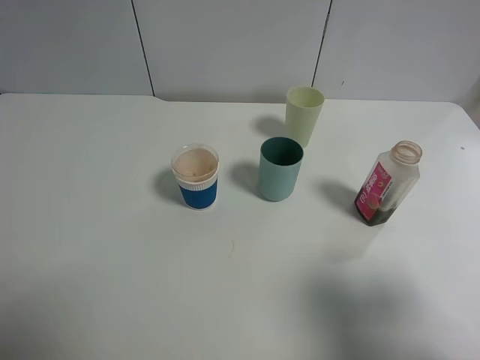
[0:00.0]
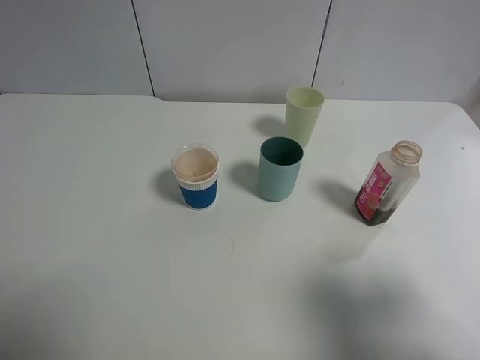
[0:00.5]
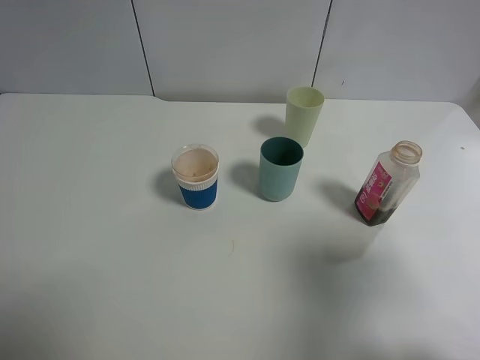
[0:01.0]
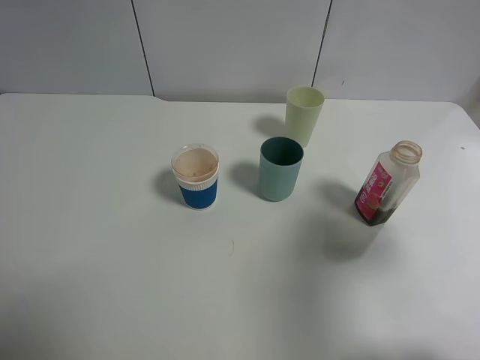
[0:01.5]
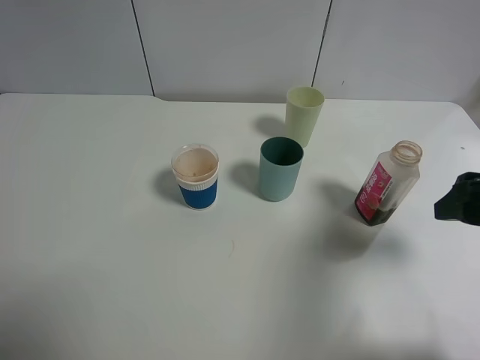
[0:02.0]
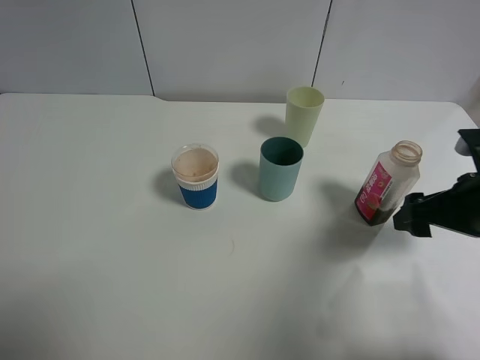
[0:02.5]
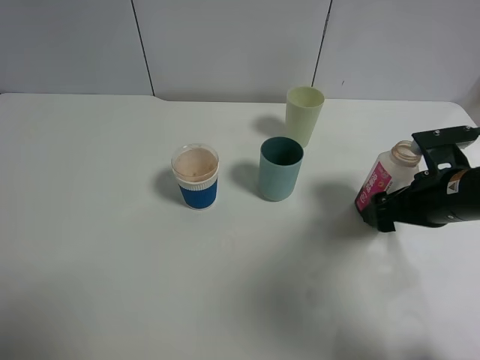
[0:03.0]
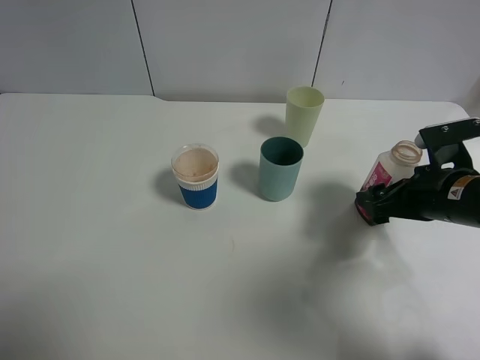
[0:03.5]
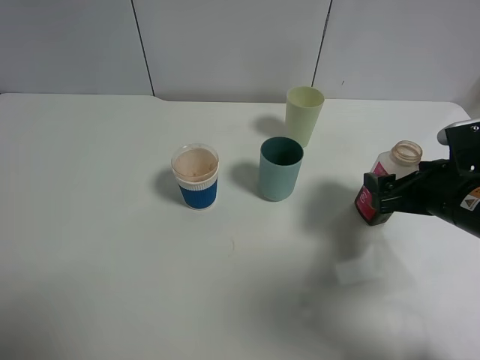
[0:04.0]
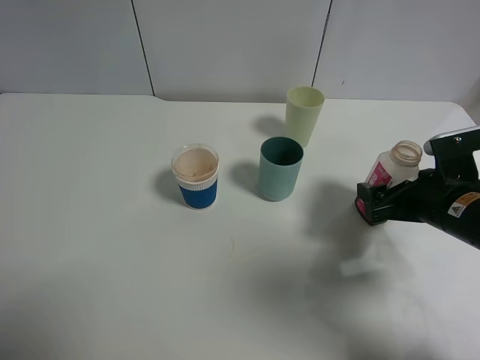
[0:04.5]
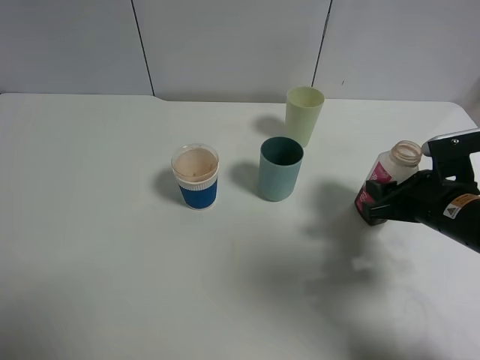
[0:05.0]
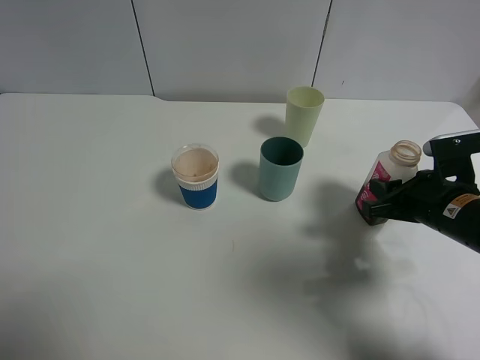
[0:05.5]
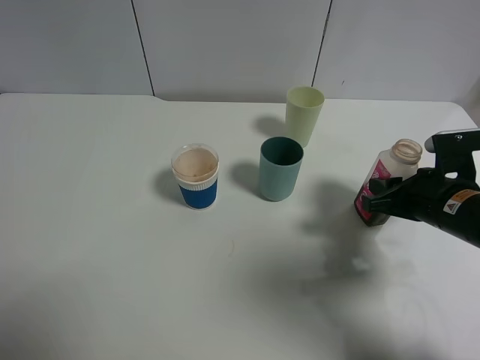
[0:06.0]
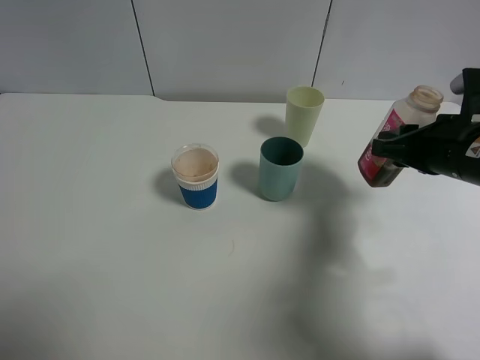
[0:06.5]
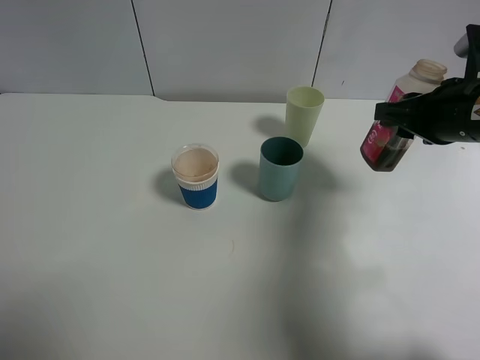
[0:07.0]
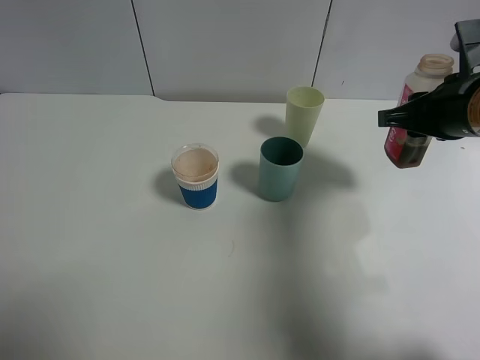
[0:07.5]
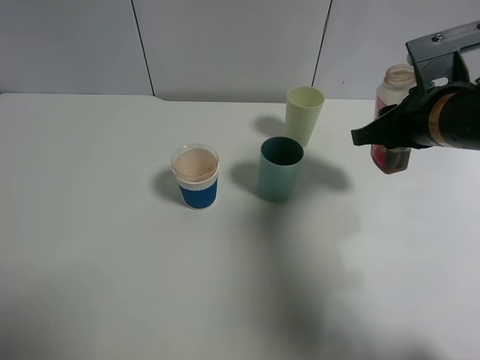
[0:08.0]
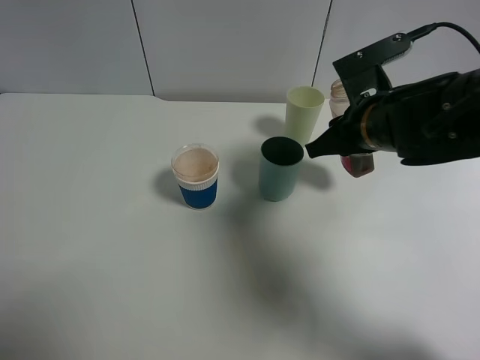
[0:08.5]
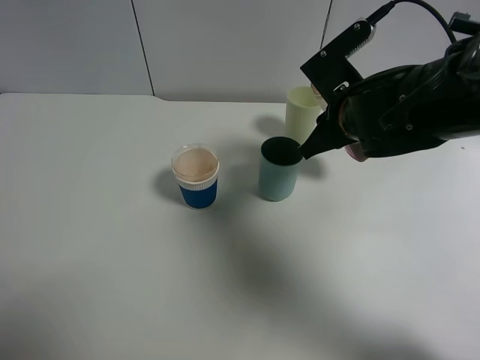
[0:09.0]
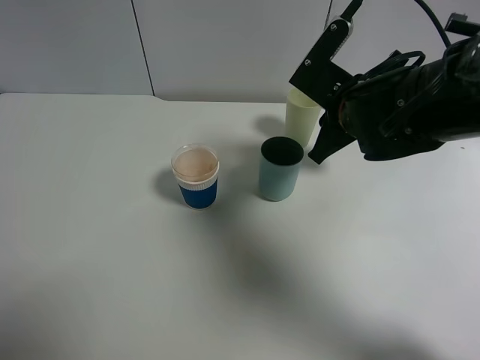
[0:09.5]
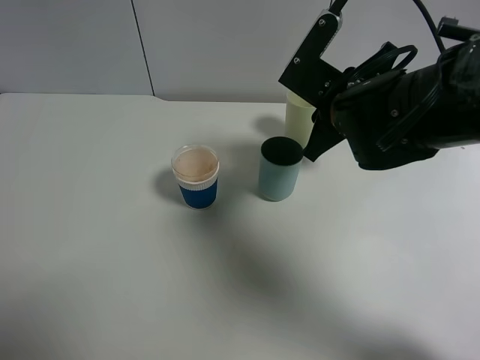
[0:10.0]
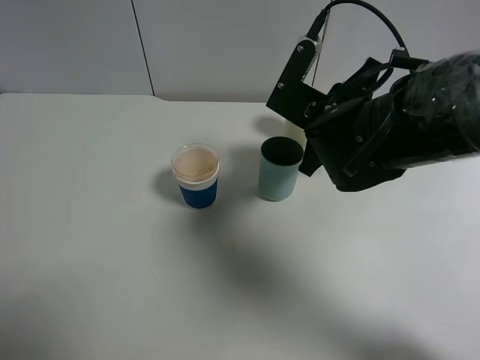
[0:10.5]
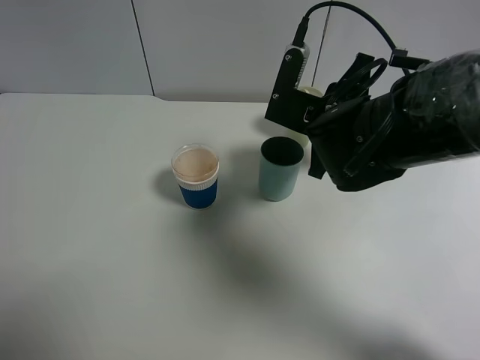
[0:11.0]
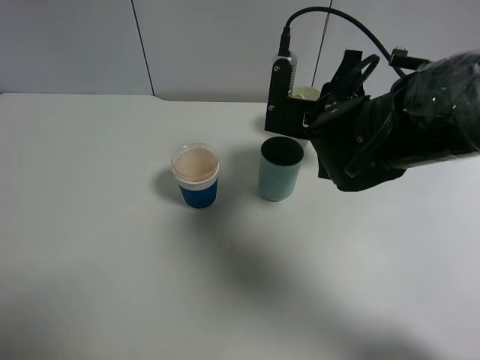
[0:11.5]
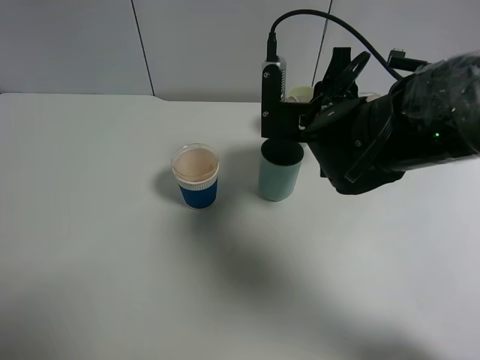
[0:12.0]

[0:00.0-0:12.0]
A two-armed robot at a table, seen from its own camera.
Task of the whole recording: use a gripper to hold the bottle of the drink and pour it into a random cup.
Step, 0:00.0 to 0:06.0: Grasp the cranberry juice bottle with the right gripper.
0:00.0 to 0:02.0: The right gripper travels forward by about 15 cm.
0:02.0 to 0:04.0: The right gripper is displaced downward by some 10 cm.
0:04.0 to 0:06.0: The right gripper closes.
0:06.0 to 0:08.0: The right gripper goes roughly 10 cm upward.
0:08.0 to 0:10.0: The right gripper goes roughly 10 cm to the left.

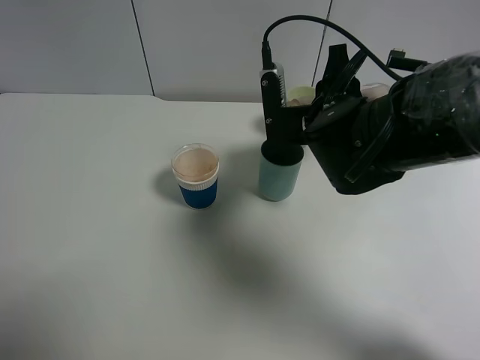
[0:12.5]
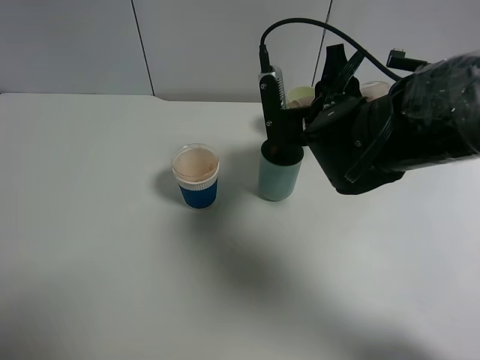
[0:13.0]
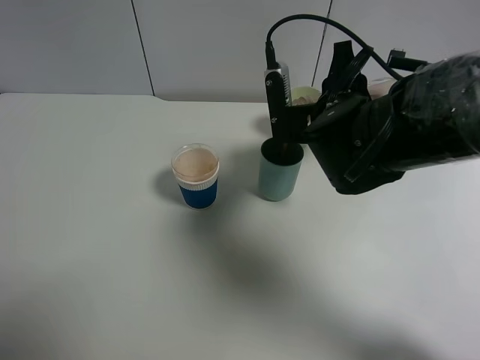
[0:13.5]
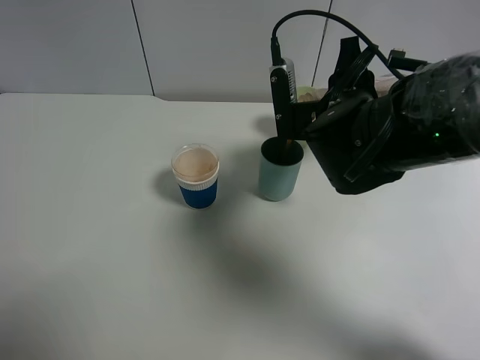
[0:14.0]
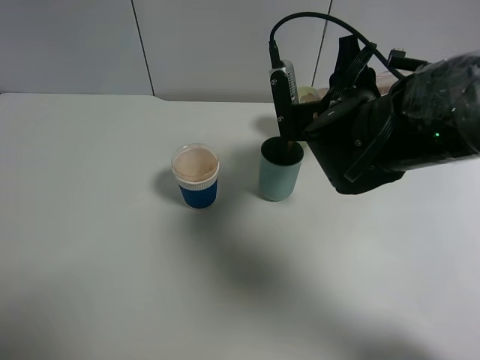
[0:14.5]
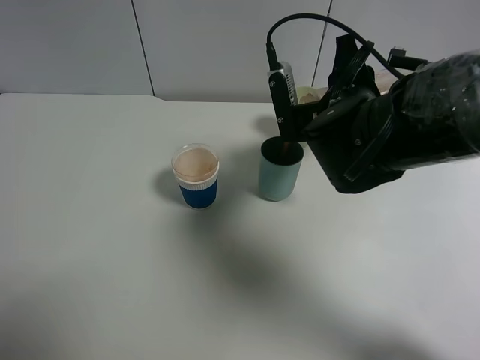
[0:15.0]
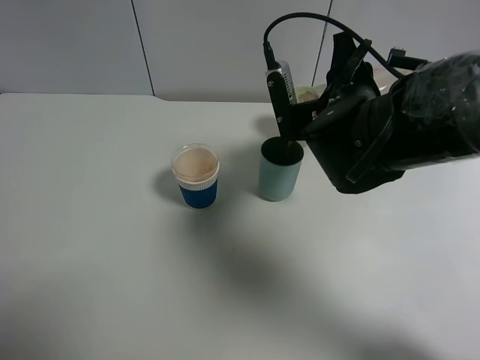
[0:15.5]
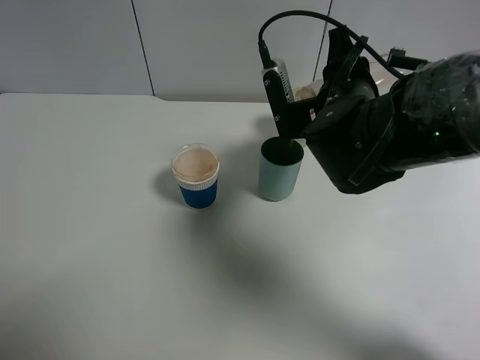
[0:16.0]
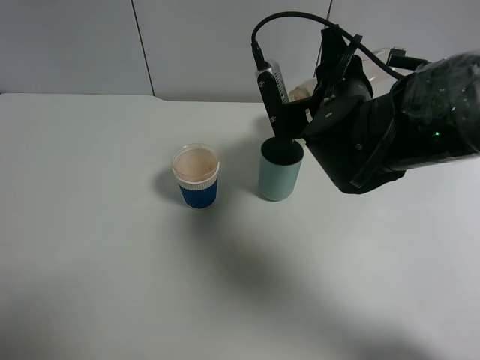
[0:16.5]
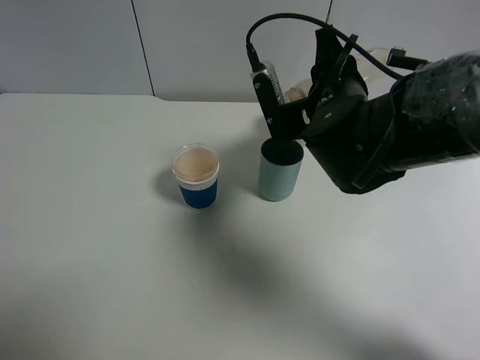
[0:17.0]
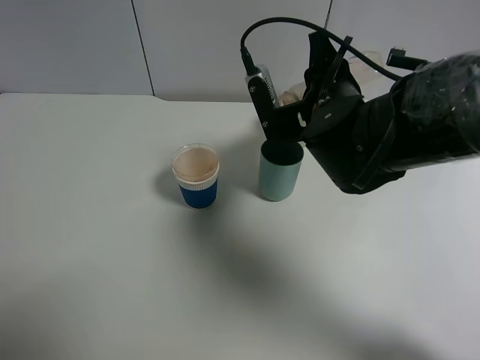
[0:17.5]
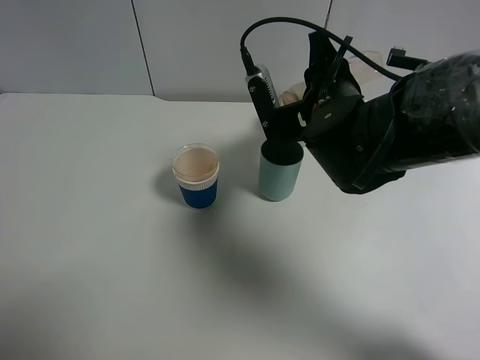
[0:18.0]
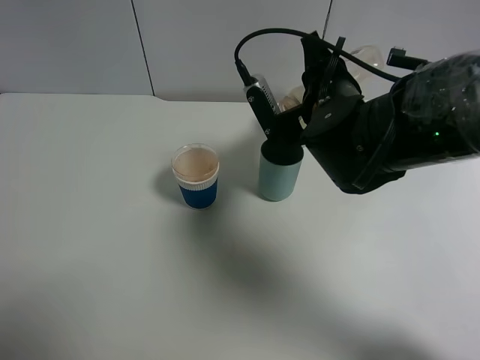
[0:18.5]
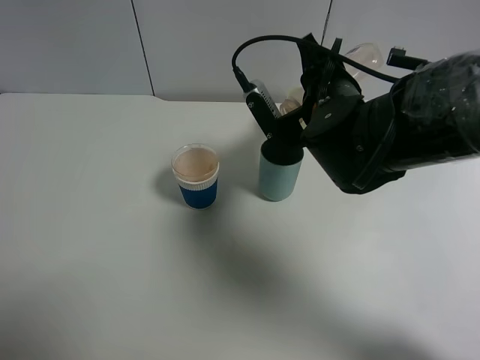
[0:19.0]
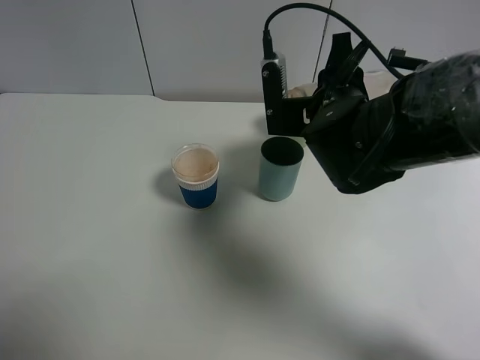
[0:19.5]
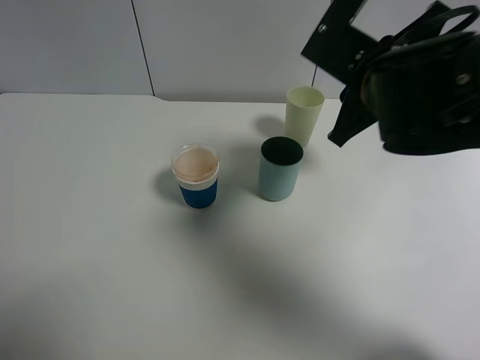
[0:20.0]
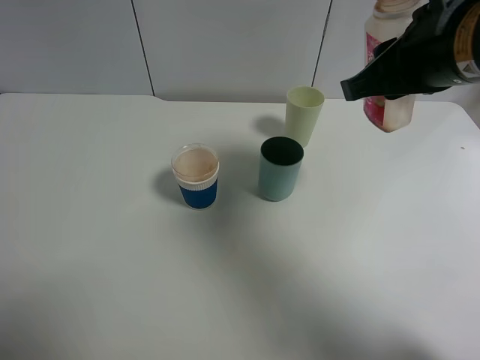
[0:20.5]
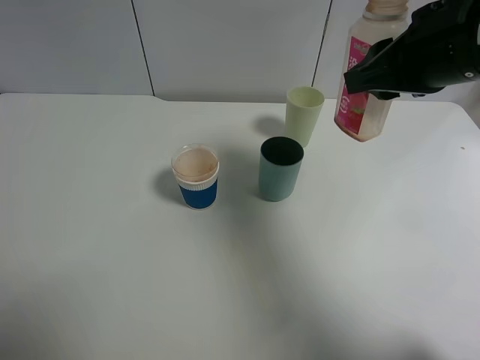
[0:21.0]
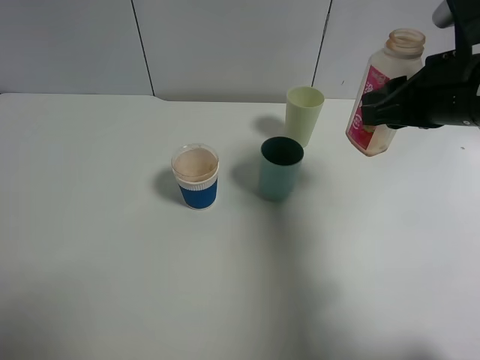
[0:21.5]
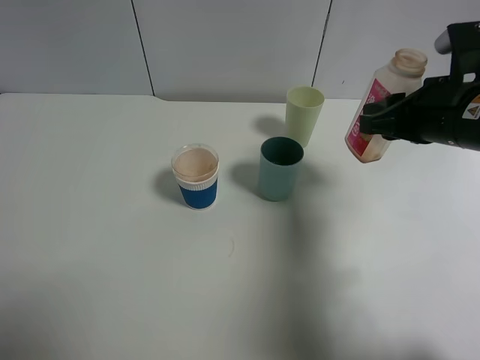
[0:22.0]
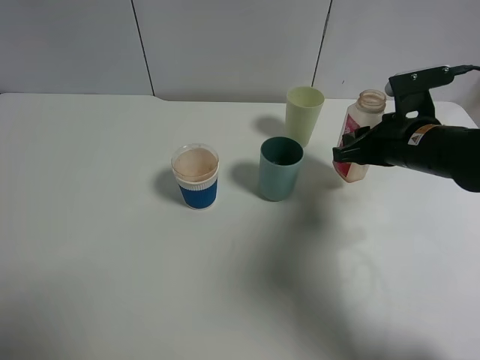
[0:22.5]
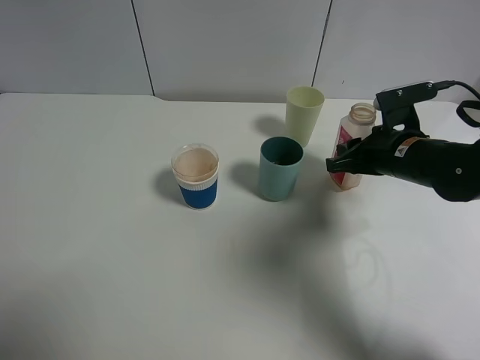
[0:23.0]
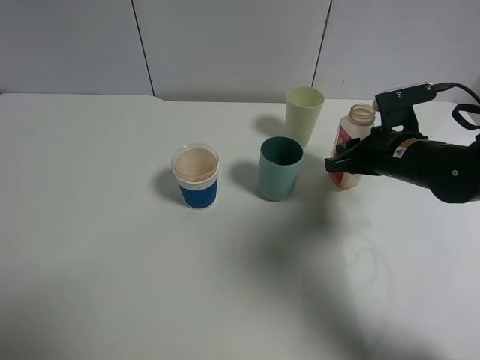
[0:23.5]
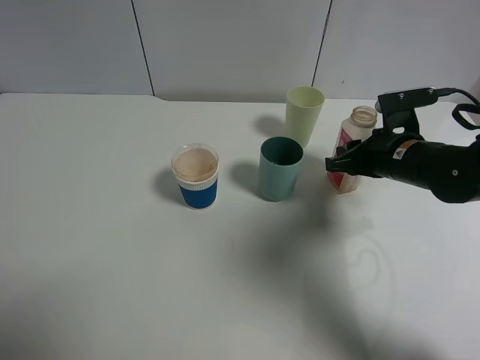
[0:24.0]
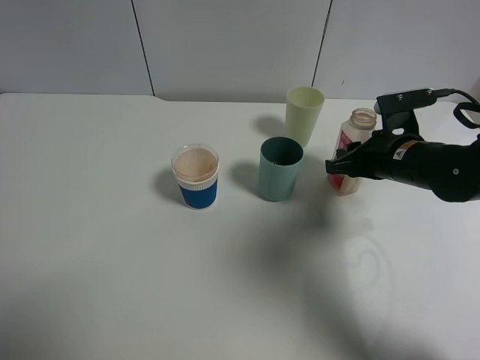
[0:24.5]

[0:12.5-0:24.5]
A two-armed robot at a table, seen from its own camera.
Task of the whole recording: use a gripper to hold the bottle of the drink and pour it into a random cup.
Step, 0:12.5 to 0:19.5: Pour the cranberry juice into the cyan cup with the right gripper.
0:12.5 to 0:16.5: The grippers make only small movements.
0:16.5 to 0:18.5: There are only small adjustments of the grippers.
0:18.5 to 0:20.5: The right gripper heads upward, to the right and backward, covering roughly 15 cm.
0:20.5 to 0:22.5: The right gripper heads downward and forward, covering roughly 15 cm.
0:22.5 to 0:24.5: The grippers make only small movements.

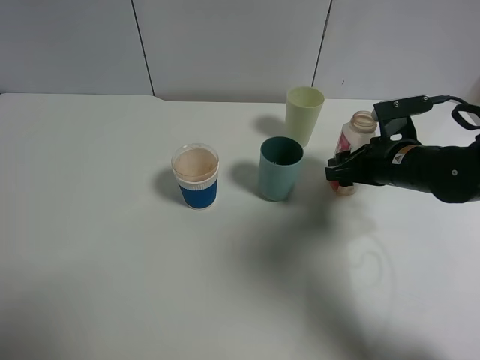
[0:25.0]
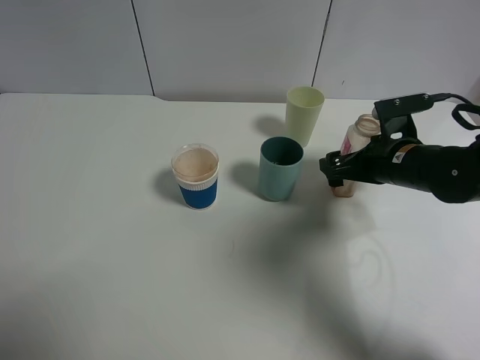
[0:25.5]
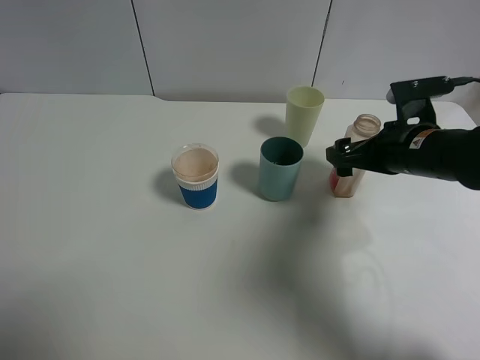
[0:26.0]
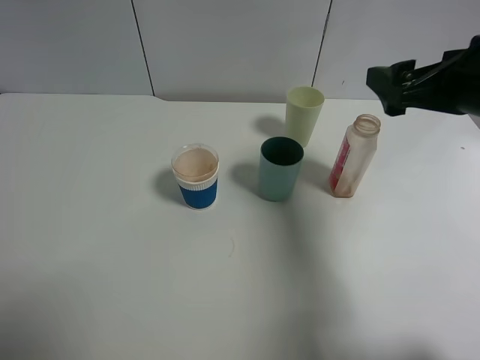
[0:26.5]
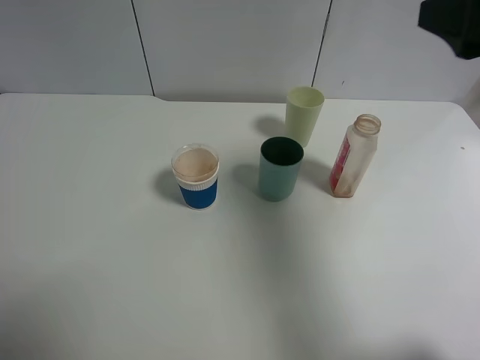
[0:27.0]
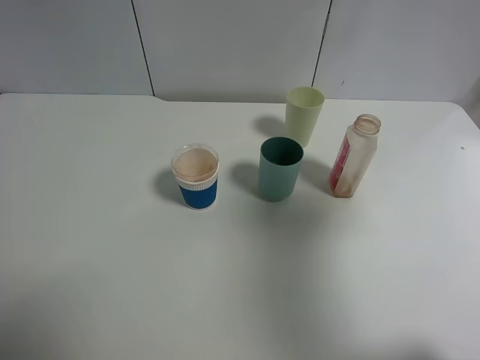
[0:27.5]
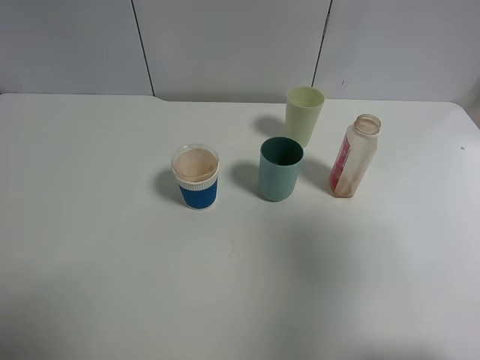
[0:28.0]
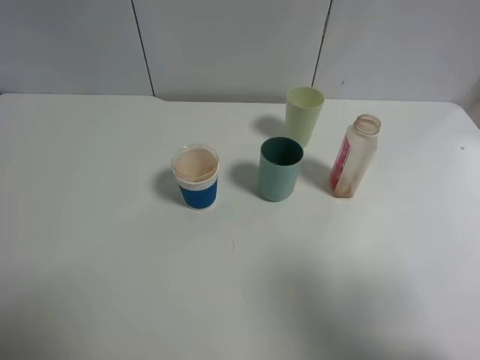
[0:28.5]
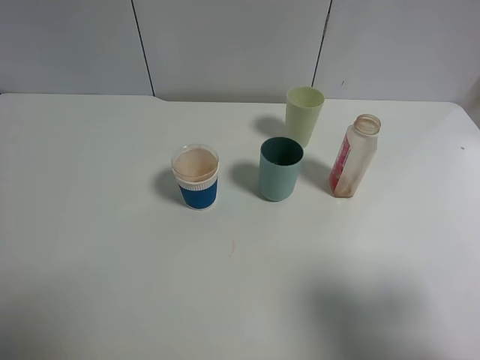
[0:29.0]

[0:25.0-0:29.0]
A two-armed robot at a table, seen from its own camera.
Task of the whole recording: use a gripper to hold the bottle of the drink and pour it into a random cup.
0:25.0 to 0:27.0: The right gripper goes roughly 25 cm upward and backward, and opens up.
0:27.0 to 0:29.0: The right gripper heads backward and downward, covering approximately 20 cm.
